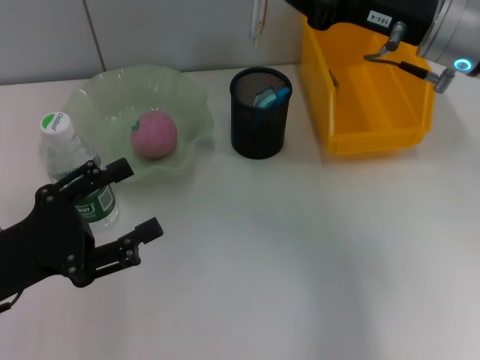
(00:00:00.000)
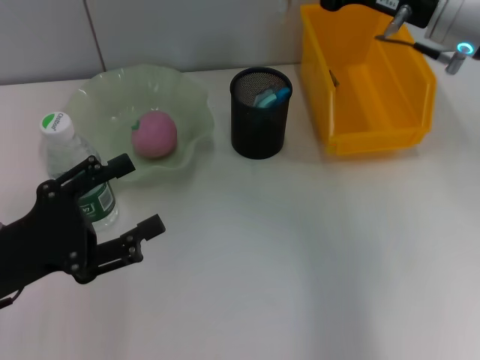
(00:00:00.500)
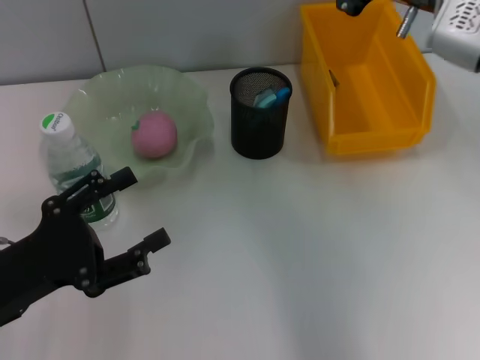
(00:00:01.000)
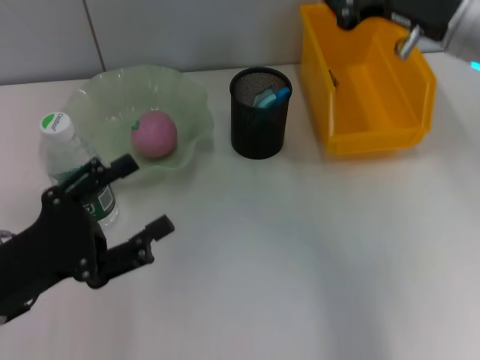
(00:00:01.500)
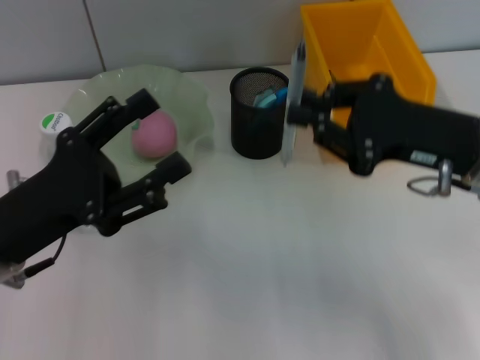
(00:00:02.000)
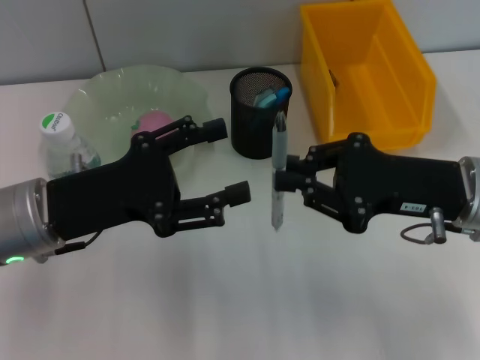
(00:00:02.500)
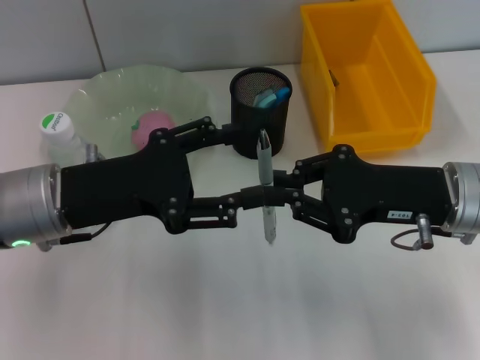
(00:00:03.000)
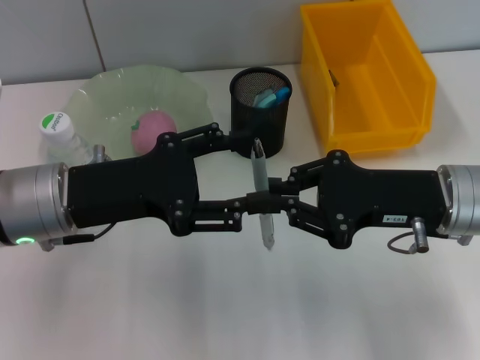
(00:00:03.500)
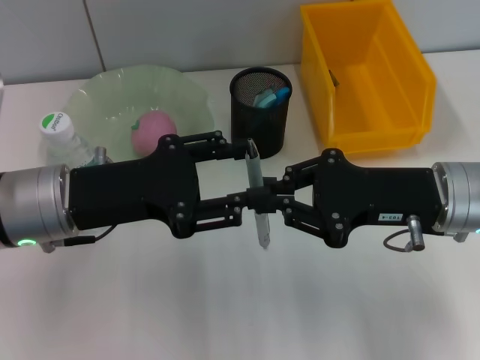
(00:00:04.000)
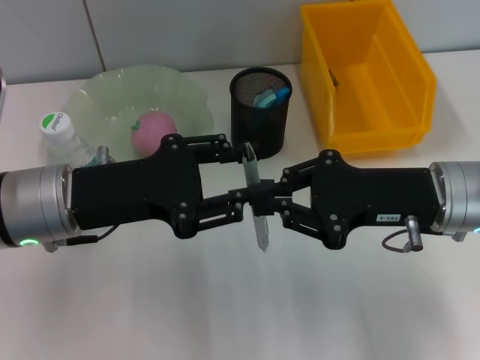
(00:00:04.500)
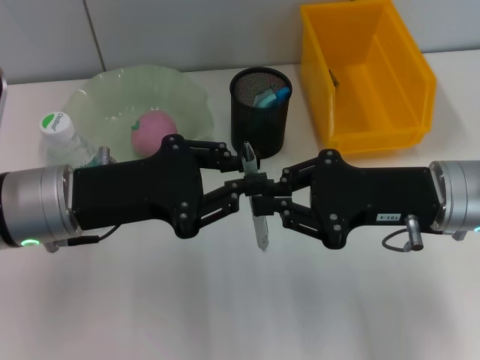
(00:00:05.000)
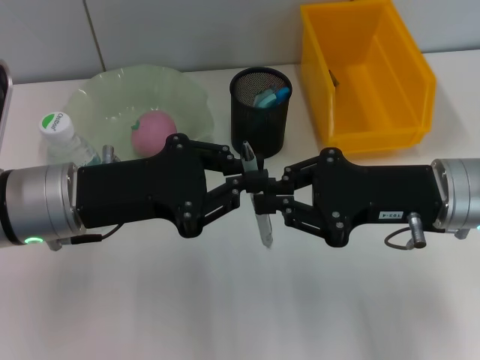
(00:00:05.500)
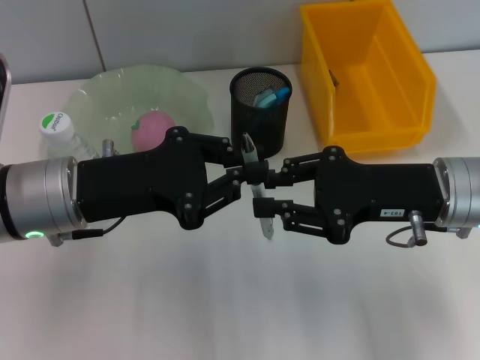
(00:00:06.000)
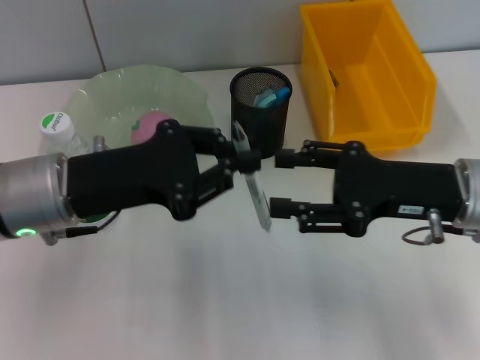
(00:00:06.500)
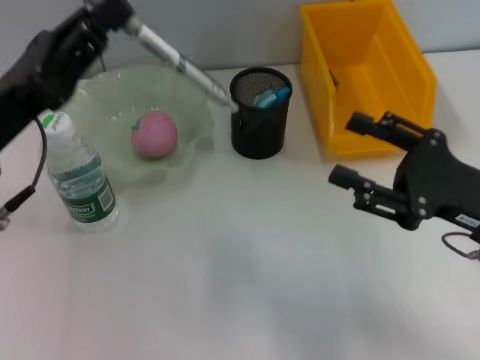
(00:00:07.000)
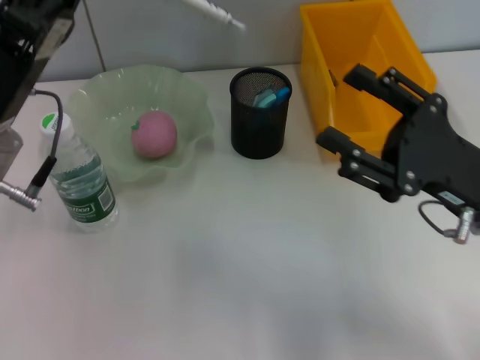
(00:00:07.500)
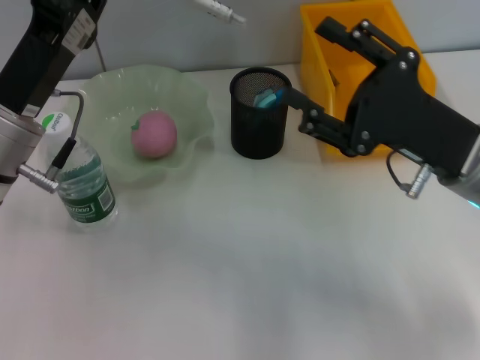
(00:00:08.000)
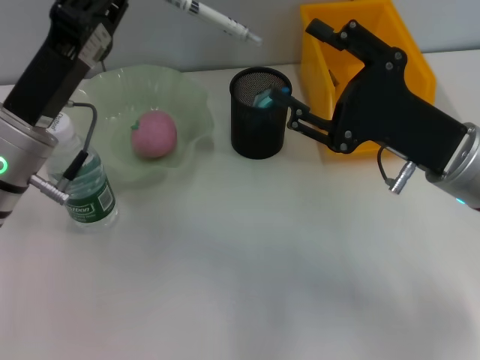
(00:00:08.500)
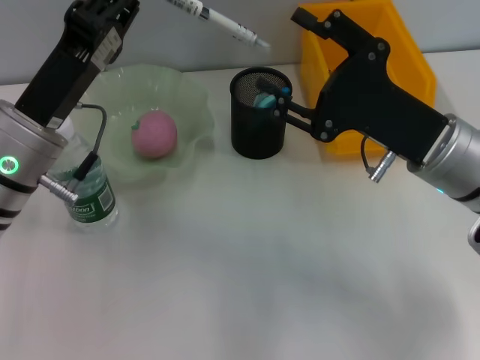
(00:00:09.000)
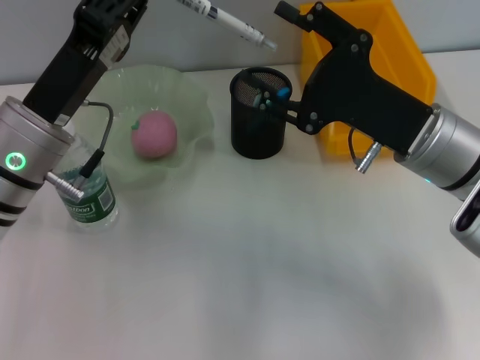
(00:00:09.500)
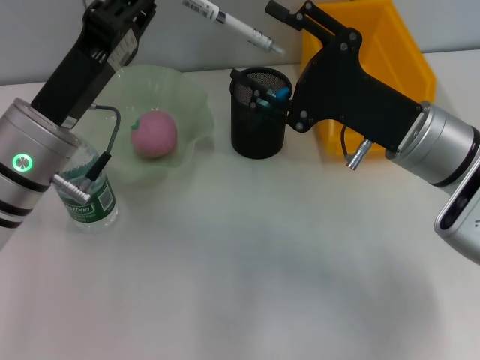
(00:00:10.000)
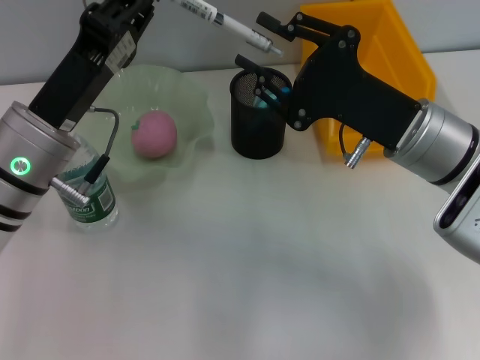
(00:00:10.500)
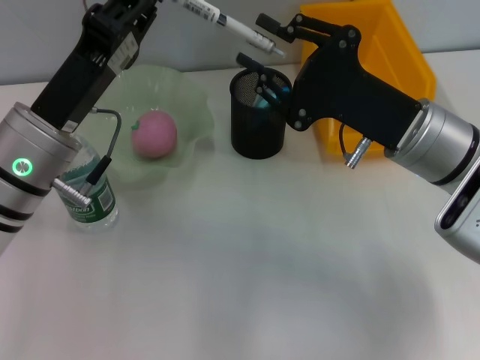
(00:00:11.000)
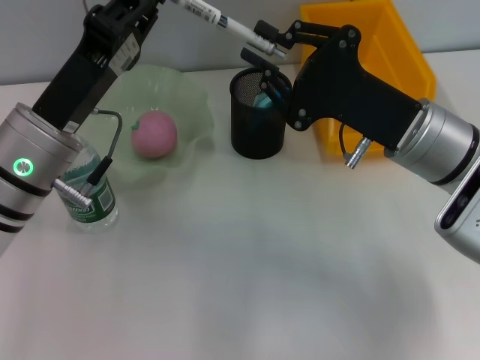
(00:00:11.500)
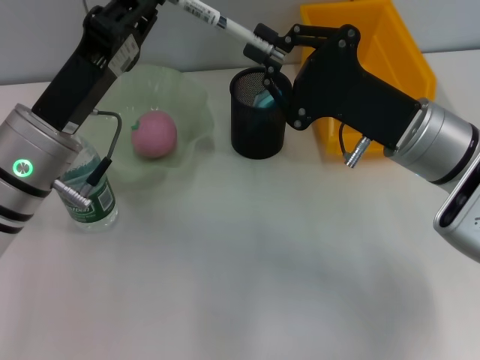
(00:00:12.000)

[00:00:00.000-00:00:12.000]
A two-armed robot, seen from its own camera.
Step, 00:00:00.000 to 00:00:06.000: Pass the gray spring-action pen from the right hand to the left hand.
00:00:00.000 to 00:00:02.000: The right gripper travels backward by some 10 cm.
00:00:02.000 to 00:00:04.000: The left gripper moves approximately 5 cm.
00:00:04.000 to 00:00:06.000: The left gripper closes up.
00:00:06.000 to 00:00:08.000: The right gripper opens its fingers.
00:00:10.000 to 00:00:12.000: The right gripper closes.

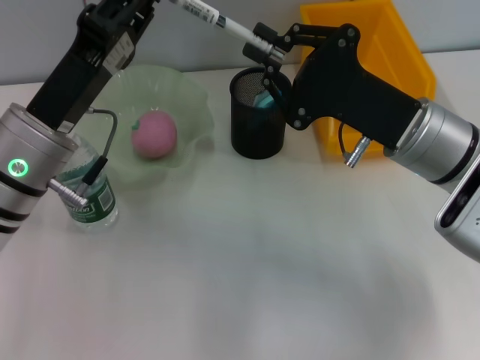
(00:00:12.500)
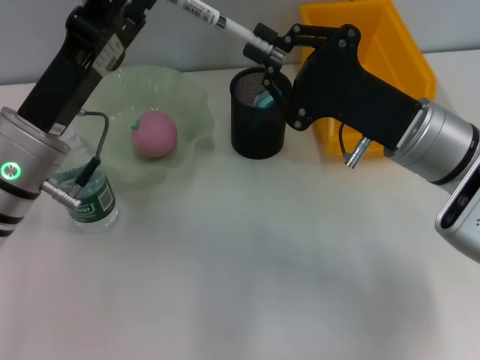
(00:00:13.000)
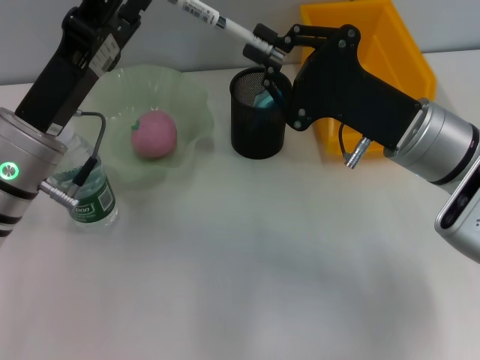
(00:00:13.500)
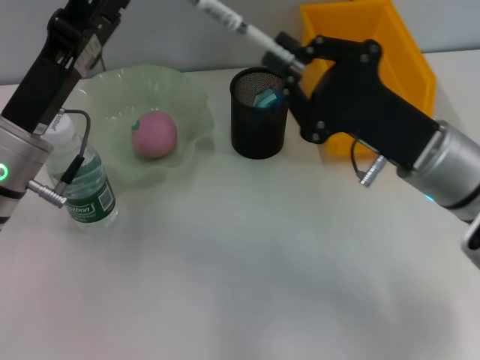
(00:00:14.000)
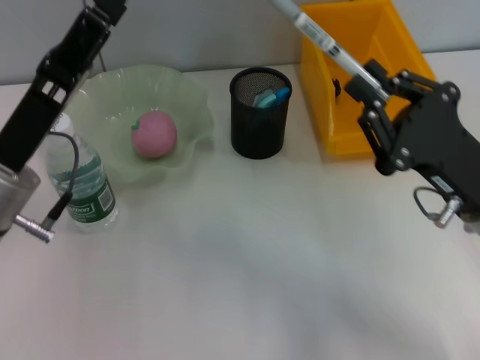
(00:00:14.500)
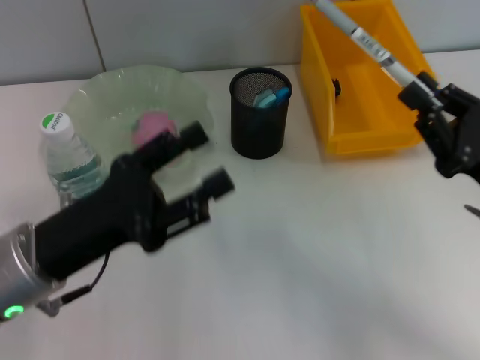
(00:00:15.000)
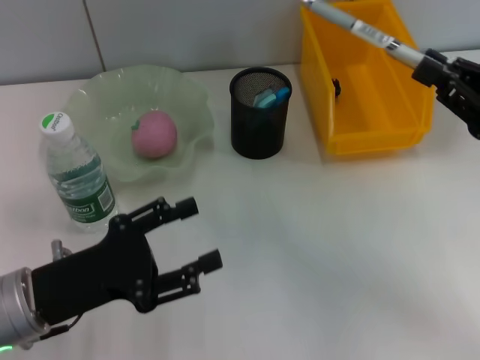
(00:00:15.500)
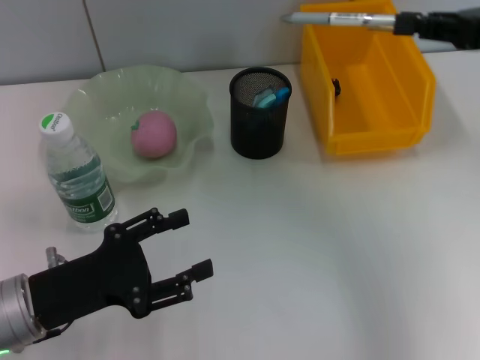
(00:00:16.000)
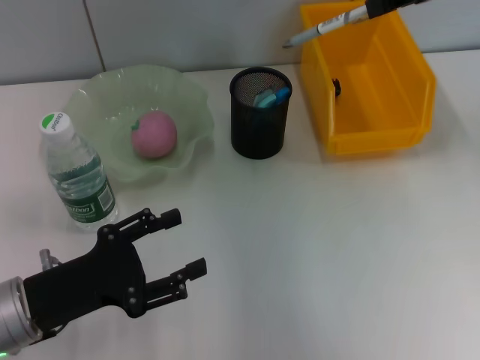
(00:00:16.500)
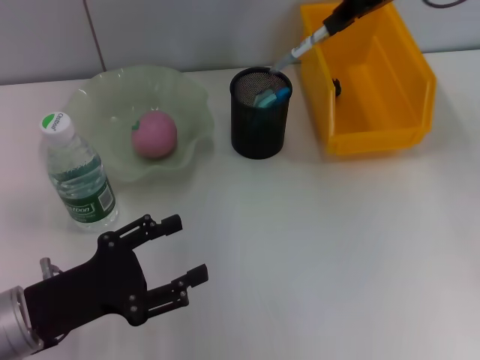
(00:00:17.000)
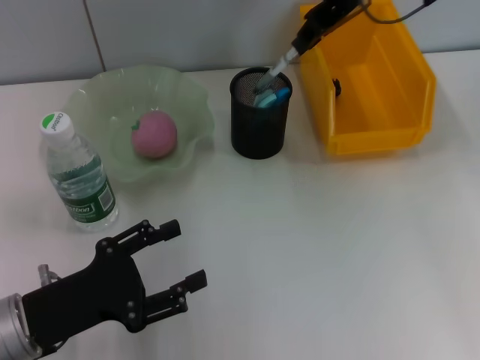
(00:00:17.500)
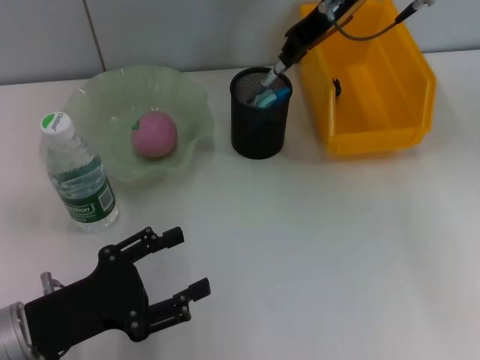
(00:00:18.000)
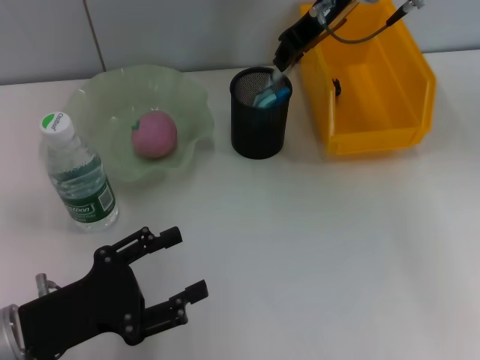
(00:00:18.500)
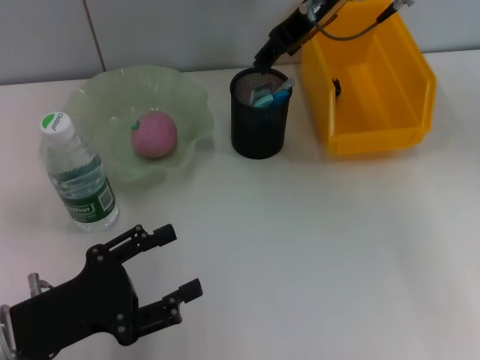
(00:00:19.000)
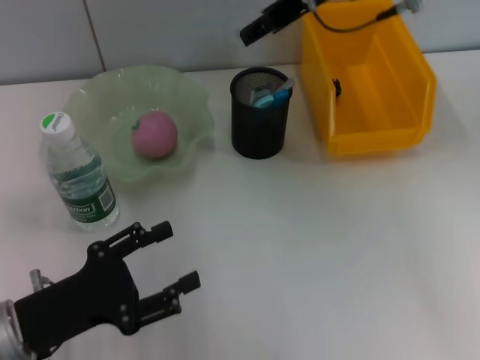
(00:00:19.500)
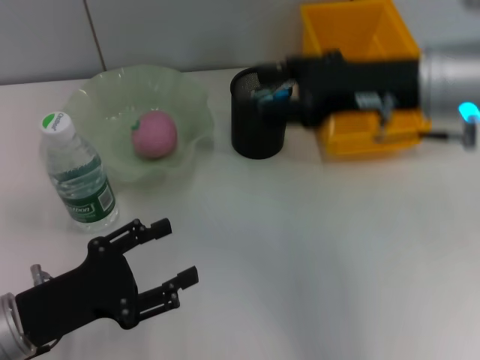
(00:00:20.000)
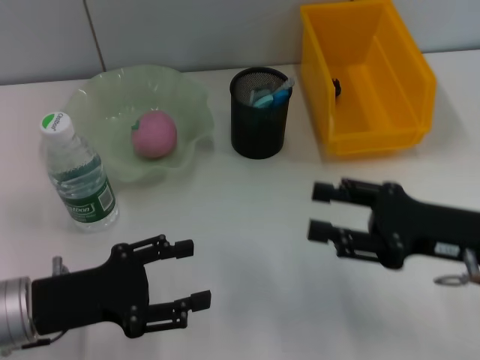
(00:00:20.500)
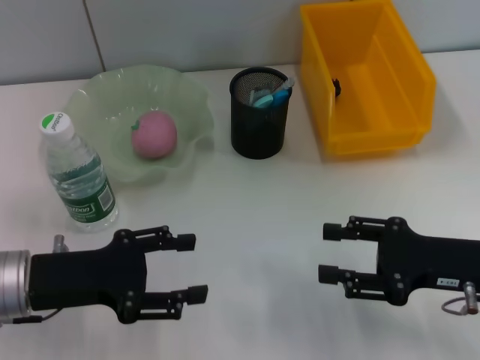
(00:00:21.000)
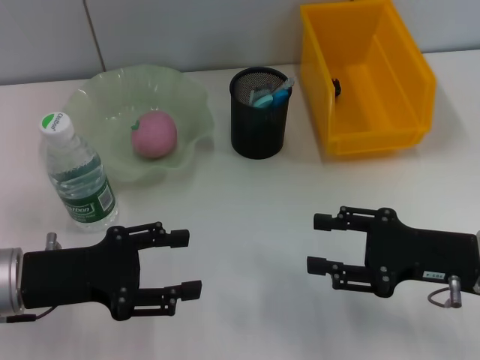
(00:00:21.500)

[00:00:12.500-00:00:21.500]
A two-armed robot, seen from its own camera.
Step, 00:00:14.500 to 00:00:18.500: Place the gray spring-action pen into the pen holder with the right hand.
00:00:12.500 to 00:00:14.500: The right gripper heads backward and to the right, covering approximately 10 cm, while the left gripper opens its fingers.
00:00:14.500 to 00:00:17.000: The left gripper heads downward and backward, covering approximately 10 cm, while the right gripper is displaced upward and forward by about 30 cm.
00:00:17.000 to 00:00:19.500: The right gripper shifts approximately 5 cm to the left, and opens up.
00:00:19.500 to 00:00:21.500: The left gripper goes some 5 cm forward, while the right gripper travels downward, backward and to the right by approximately 30 cm.
